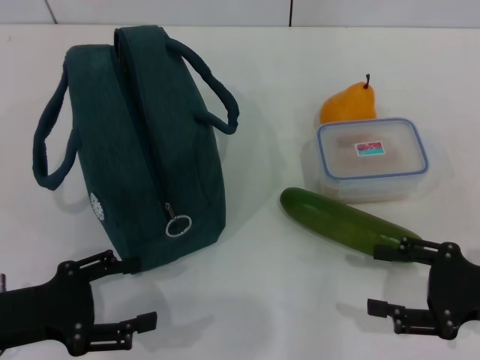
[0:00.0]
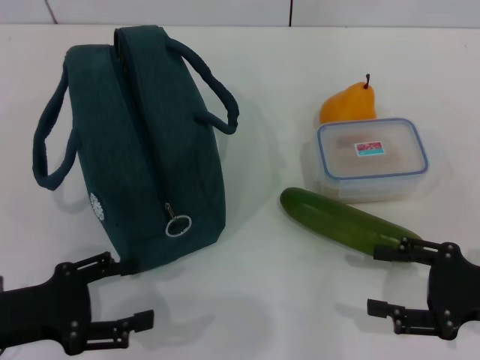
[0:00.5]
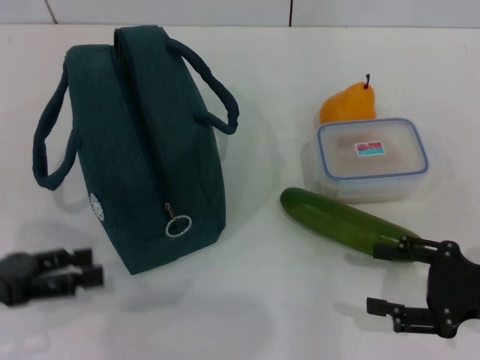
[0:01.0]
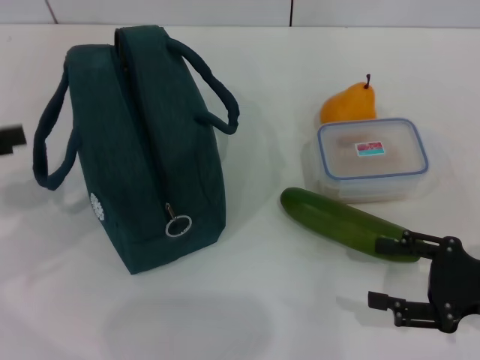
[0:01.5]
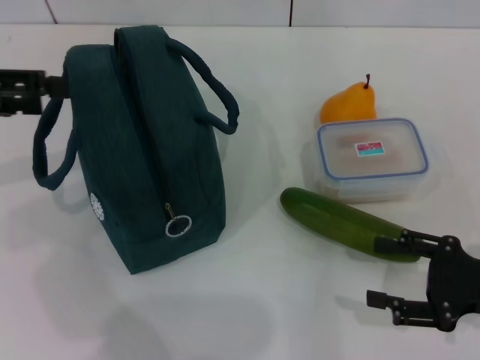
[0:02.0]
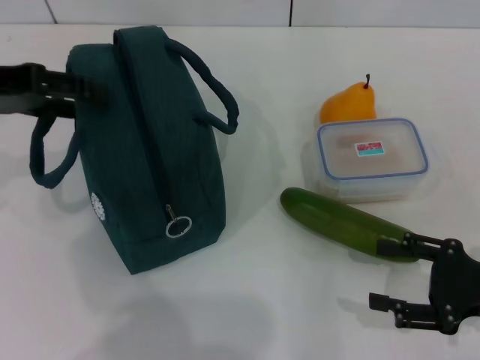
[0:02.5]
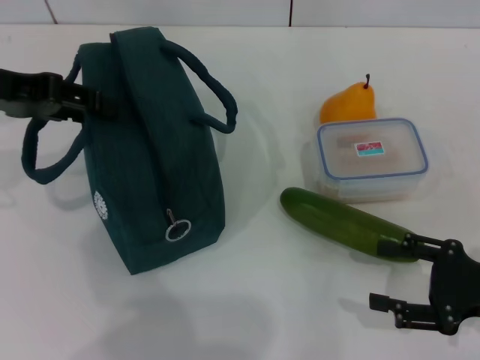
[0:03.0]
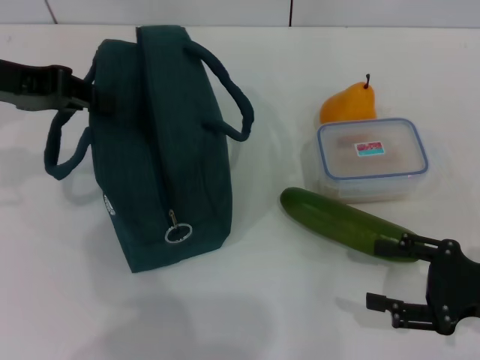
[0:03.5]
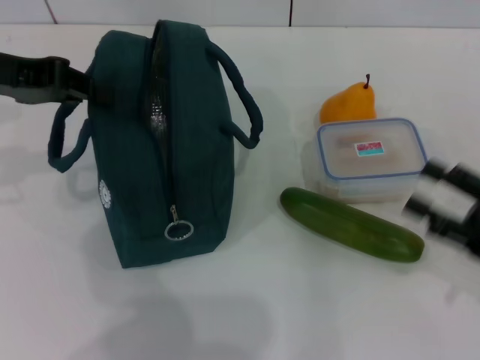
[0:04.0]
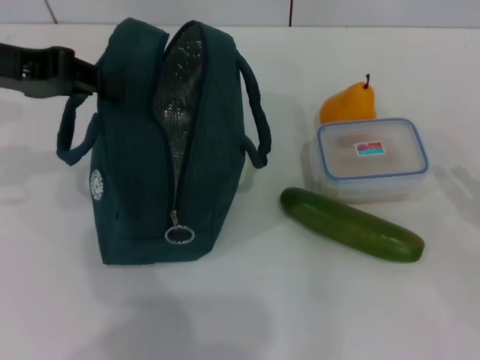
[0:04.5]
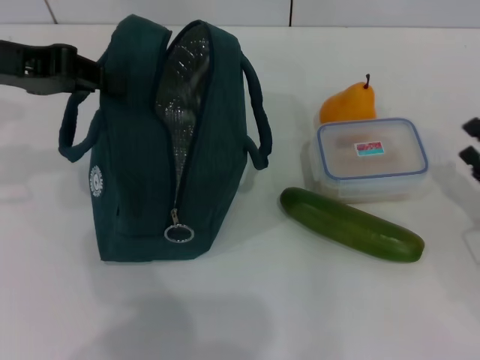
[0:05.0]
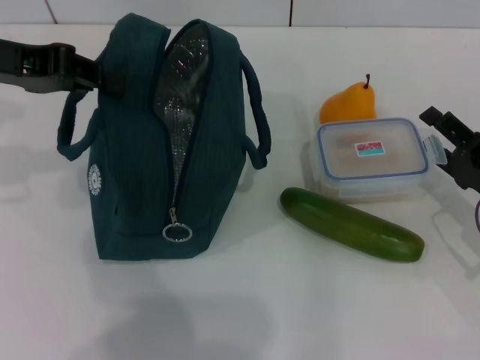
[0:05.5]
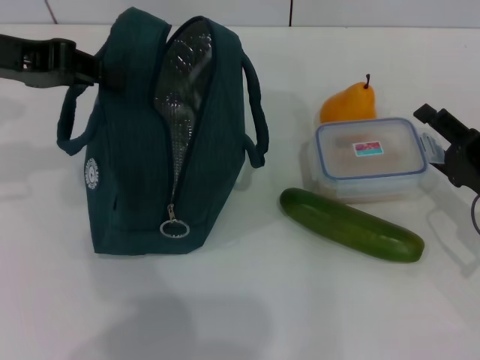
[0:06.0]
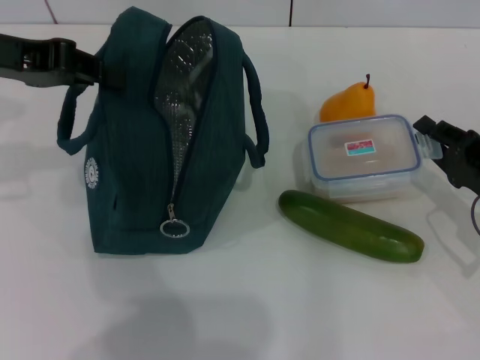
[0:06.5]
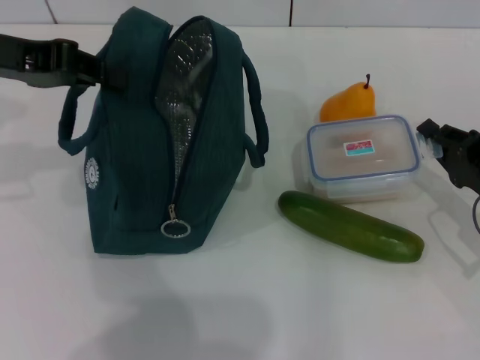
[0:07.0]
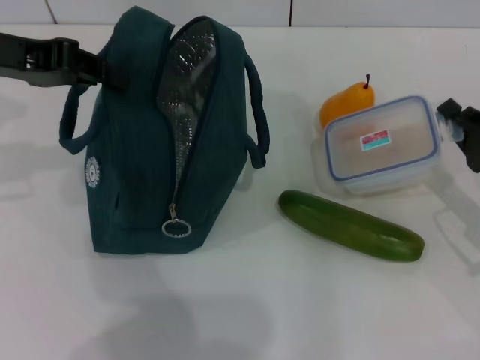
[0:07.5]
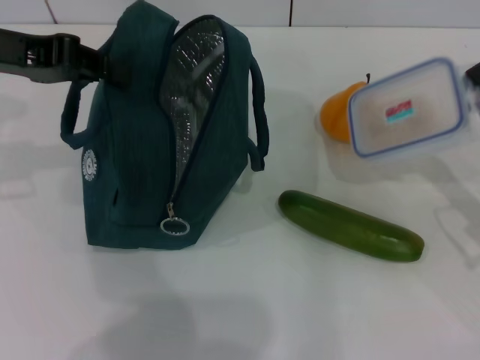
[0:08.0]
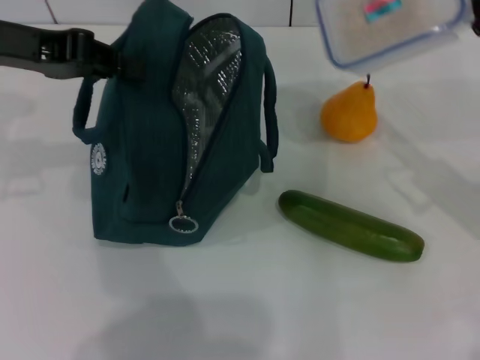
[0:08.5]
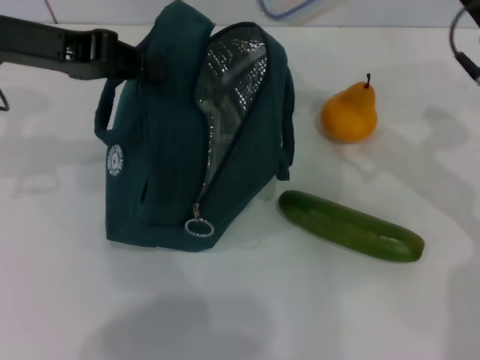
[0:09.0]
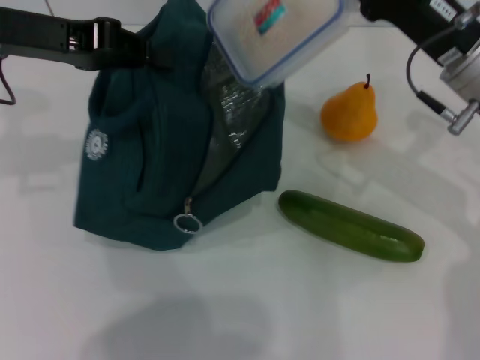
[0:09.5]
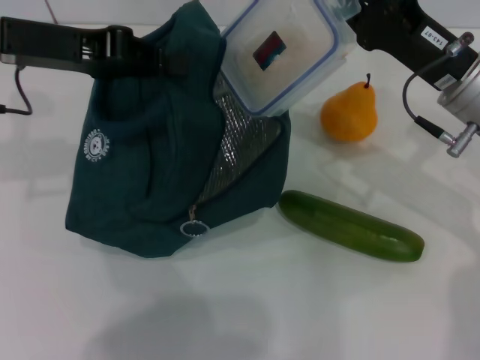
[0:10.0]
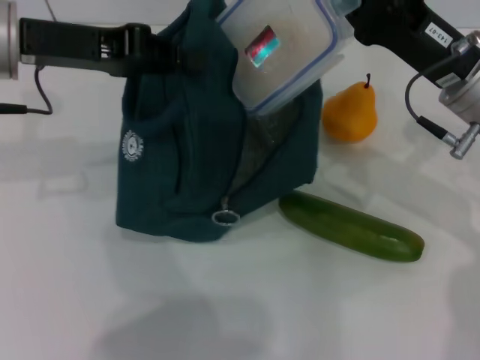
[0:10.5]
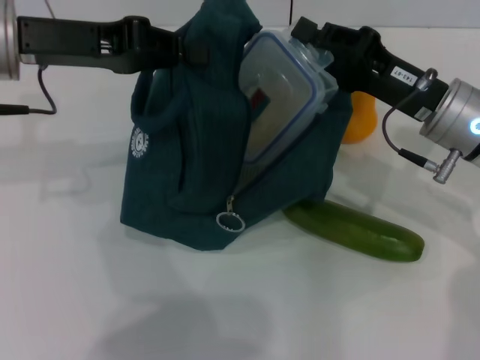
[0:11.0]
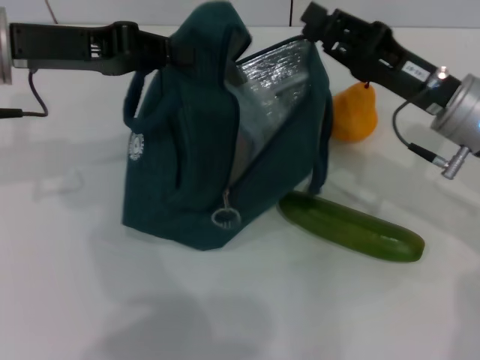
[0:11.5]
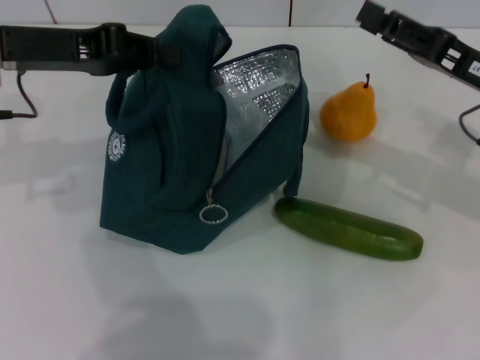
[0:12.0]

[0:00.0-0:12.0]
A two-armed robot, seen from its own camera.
Step, 0:00.0 to 0:03.0: Hold the lunch bag with your left hand.
Step, 0:03.5 to 0:07.0: Pick up the lunch box with your right hand.
Step, 0:07.5 to 0:11.0: Place the lunch box into the lunch bag with your right hand.
0:00.0 to 0:02.0: The left gripper shifts approximately 20 cm upward and forward.
0:02.0 to 0:04.0: The left gripper shifts by roughly 5 cm, and closes up.
0:04.0 to 0:06.0: The right gripper travels forward by about 5 cm.
0:06.0 to 0:08.0: The right gripper closes.
0:08.0 to 0:10.0: The right gripper heads to the left, forward and upward, covering some 15 cm.
0:10.0 to 0:12.0: The right gripper goes roughly 5 cm to the right, and opens.

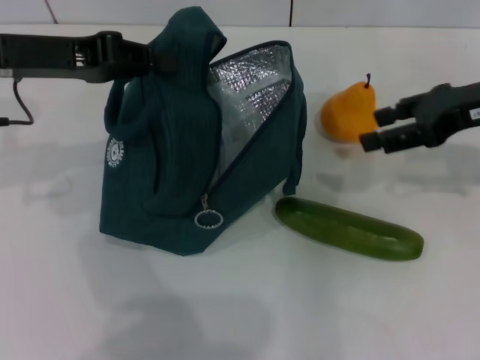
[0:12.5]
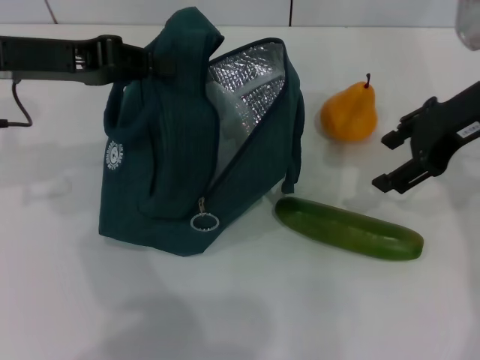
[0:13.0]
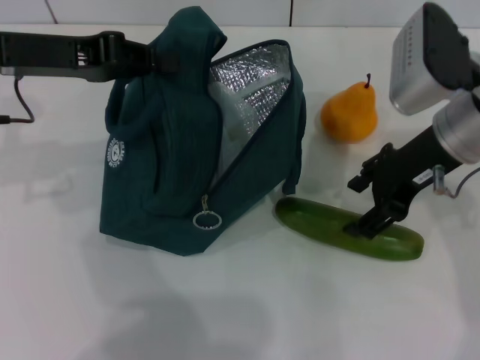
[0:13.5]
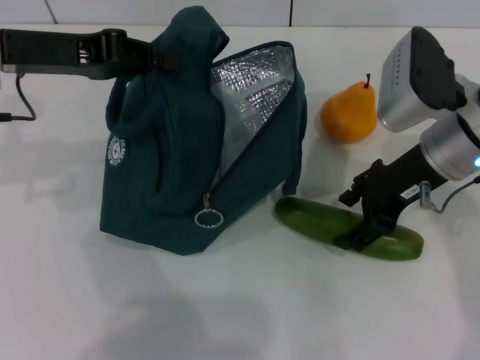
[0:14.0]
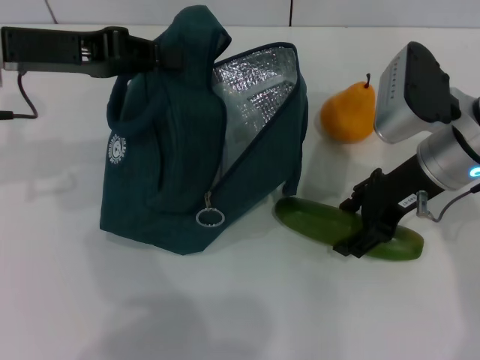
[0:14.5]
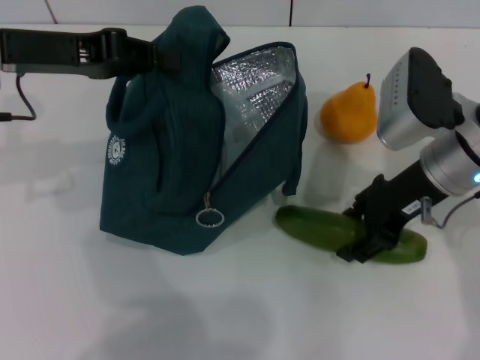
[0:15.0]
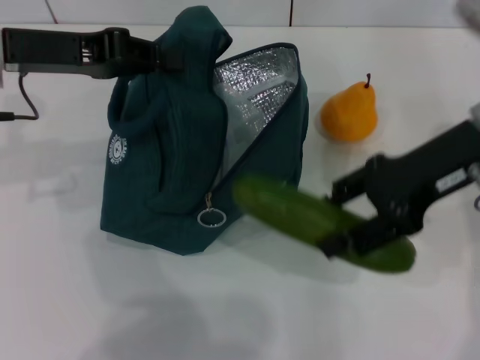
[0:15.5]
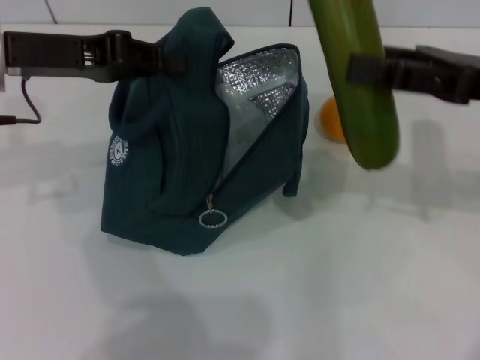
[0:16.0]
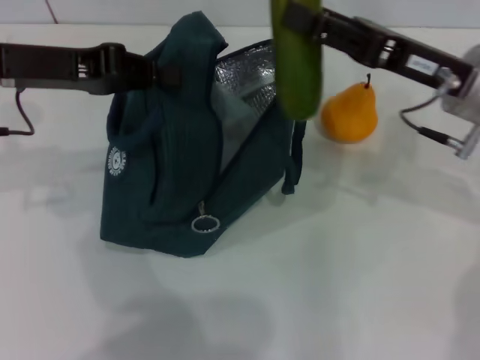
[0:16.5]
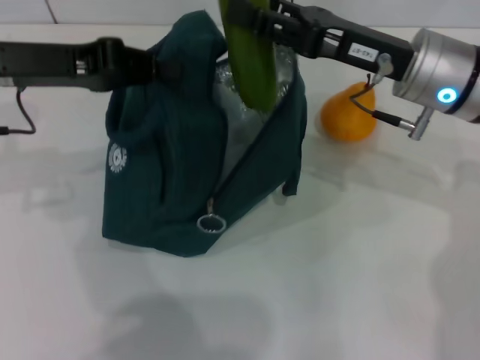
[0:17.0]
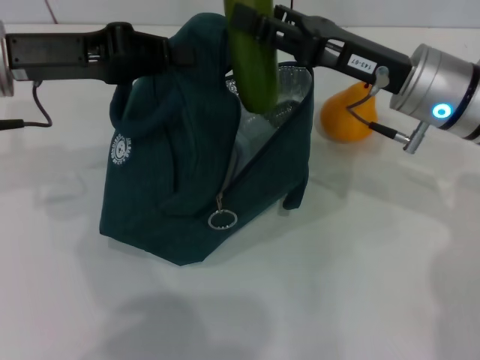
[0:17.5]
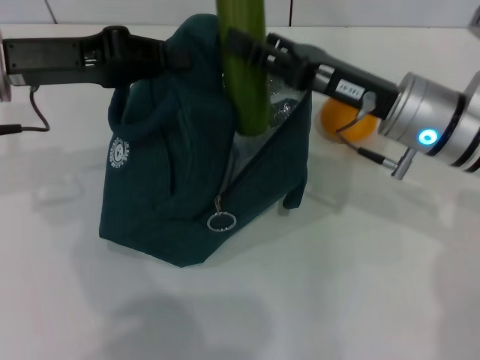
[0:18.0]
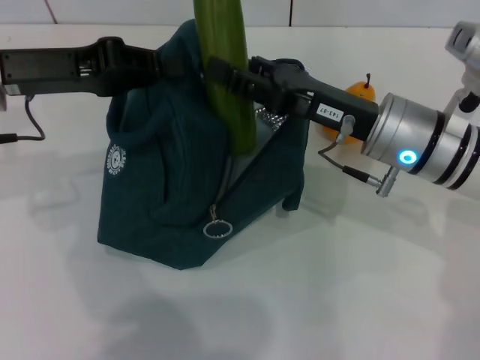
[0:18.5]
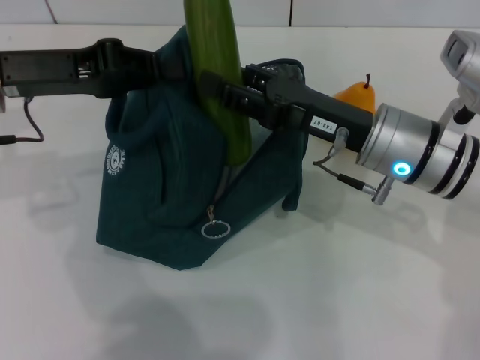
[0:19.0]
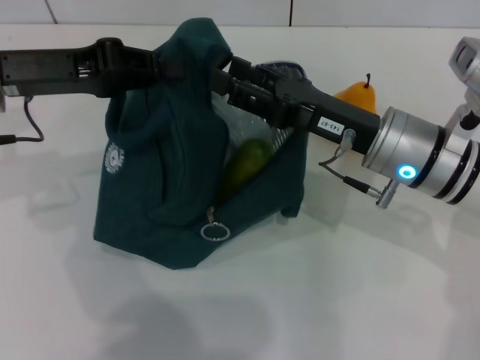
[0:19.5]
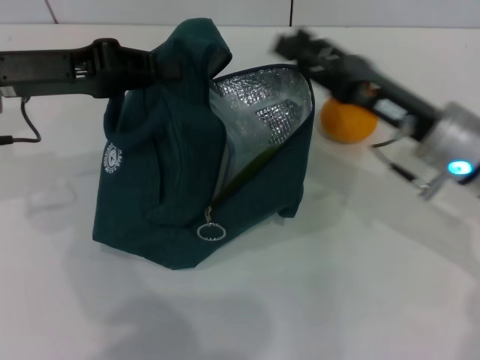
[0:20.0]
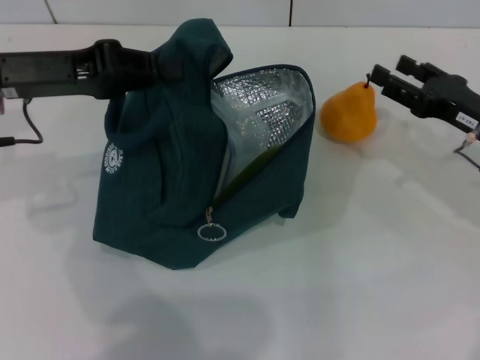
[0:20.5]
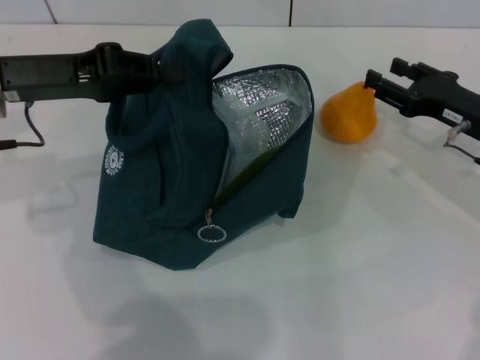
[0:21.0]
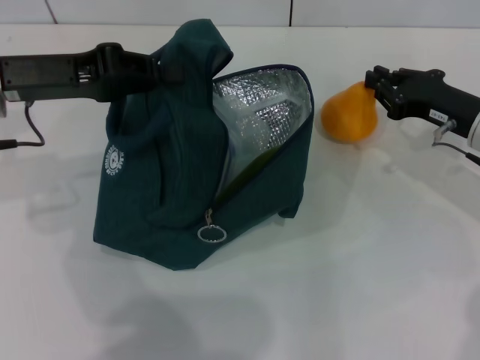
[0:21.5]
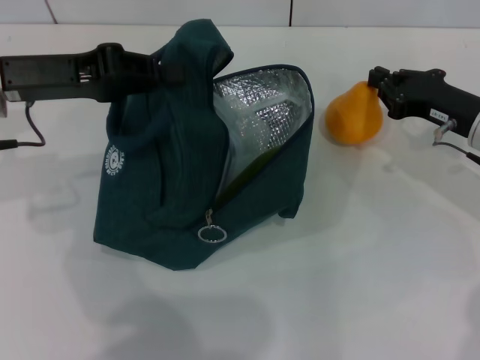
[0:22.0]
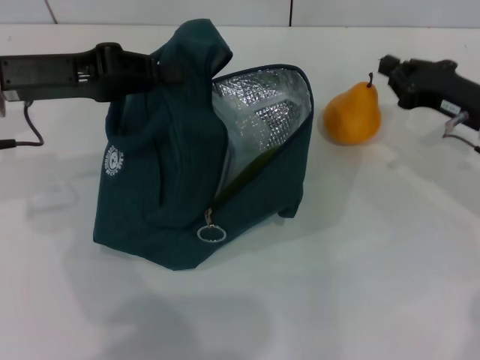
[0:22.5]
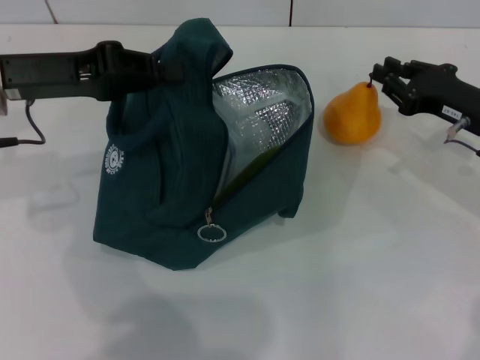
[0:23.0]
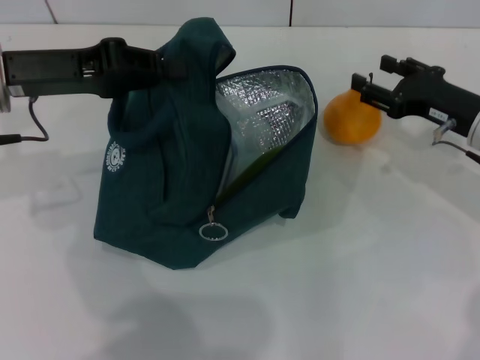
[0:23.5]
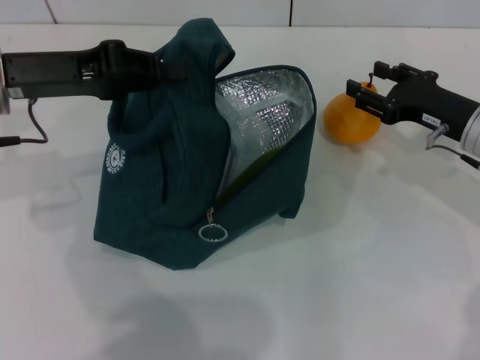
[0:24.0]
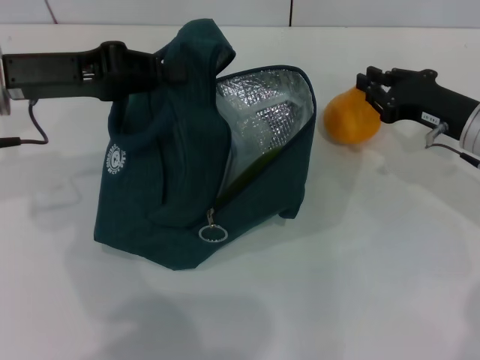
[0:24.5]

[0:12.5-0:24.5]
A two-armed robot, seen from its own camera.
Step, 0:12.5 to 0:14.5: Pick up the cucumber with your right hand.
Step, 0:15.0 to 0:19.5: Put the cucumber into the lunch bag with your right hand.
0:12.5 to 0:14.5: The right gripper shifts roughly 10 cm to the left and downward.
0:14.5 to 0:16.5: The right gripper reaches about 10 cm to the right, then returns.
0:16.5 to 0:18.5: The right gripper is displaced to the left by approximately 5 cm.
0:18.5 to 0:20.5: The right gripper heads to the right, covering some 15 cm.
0:20.5 to 0:22.5: The right gripper closes.
0:22.5 to 0:24.5: The right gripper opens and closes again.

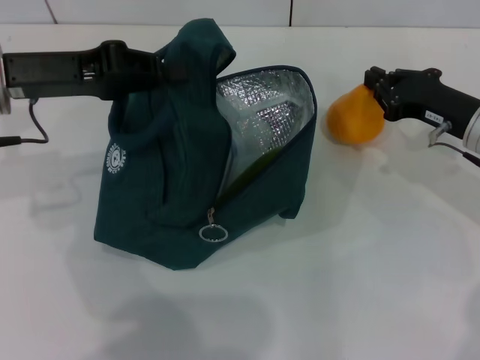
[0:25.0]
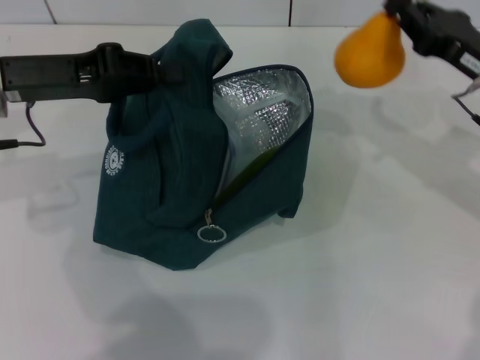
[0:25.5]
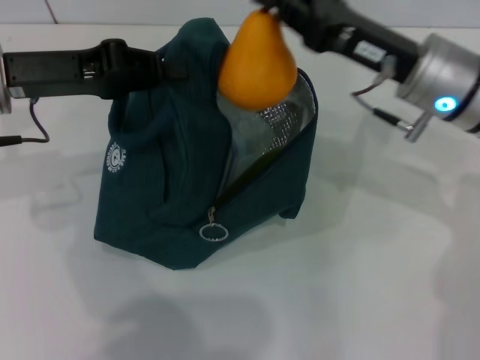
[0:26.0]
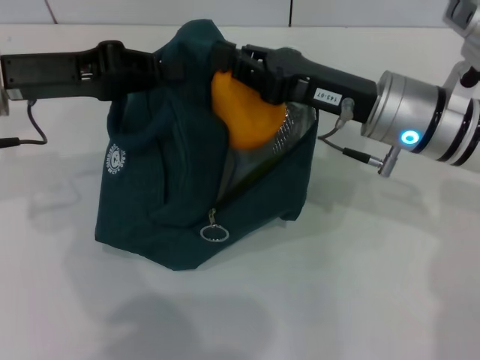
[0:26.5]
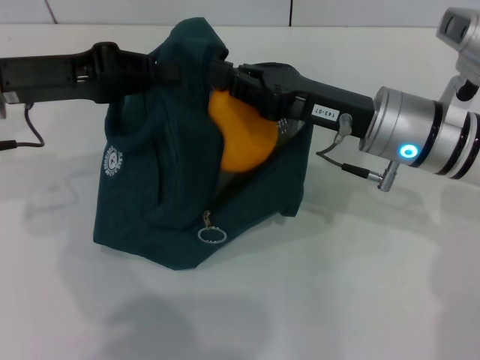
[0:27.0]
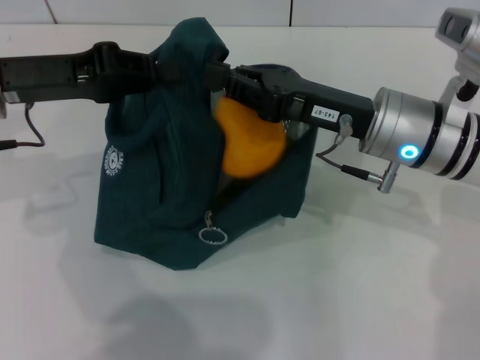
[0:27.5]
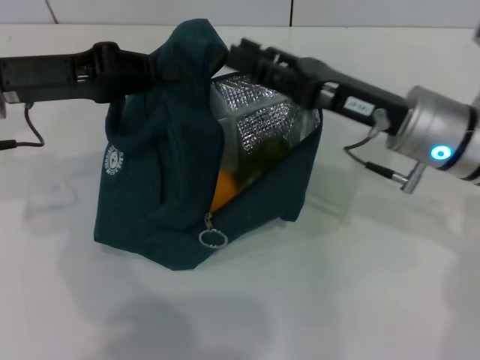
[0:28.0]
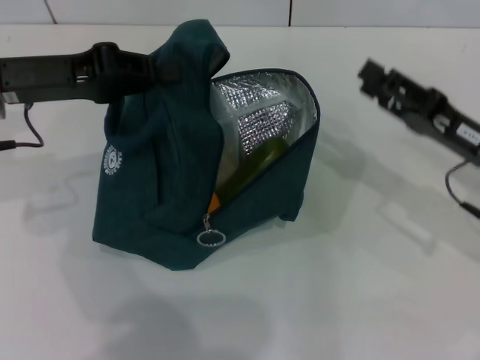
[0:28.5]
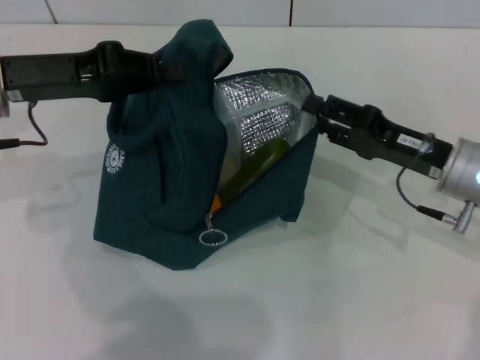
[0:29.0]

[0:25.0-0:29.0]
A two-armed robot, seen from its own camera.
0:25.0 to 0:27.0: The right gripper shifts approximately 15 cm to the left and upward.
0:27.0 to 0:29.0: The right gripper shifts approximately 10 cm to the right and downward, and opens its fingers.
